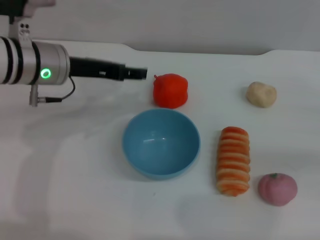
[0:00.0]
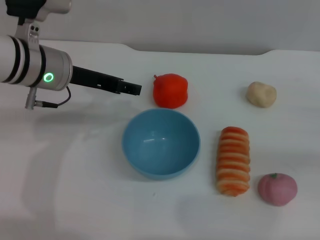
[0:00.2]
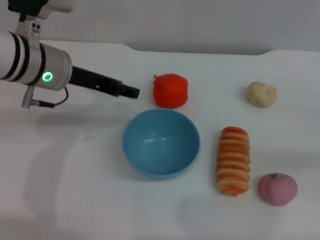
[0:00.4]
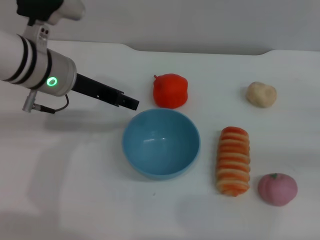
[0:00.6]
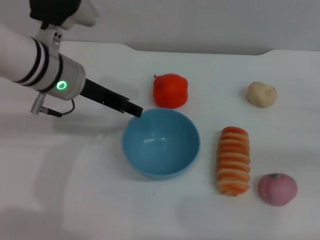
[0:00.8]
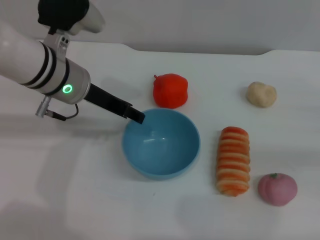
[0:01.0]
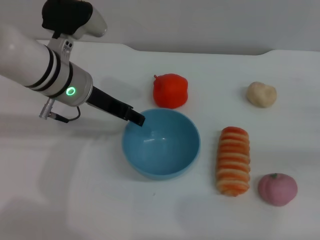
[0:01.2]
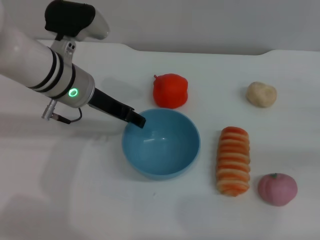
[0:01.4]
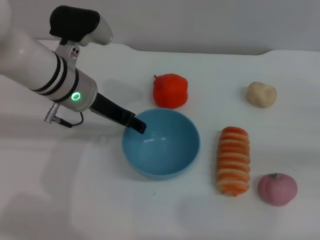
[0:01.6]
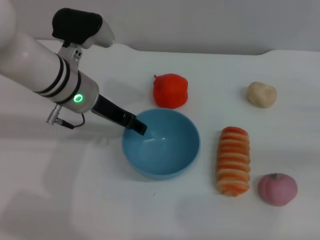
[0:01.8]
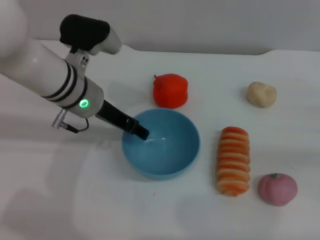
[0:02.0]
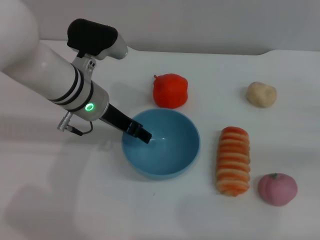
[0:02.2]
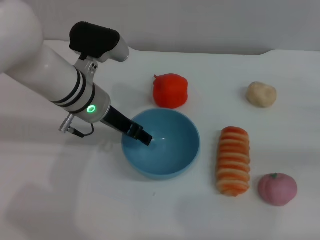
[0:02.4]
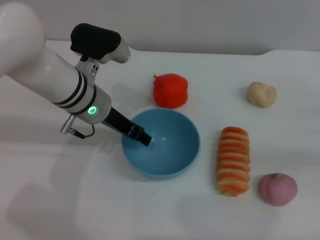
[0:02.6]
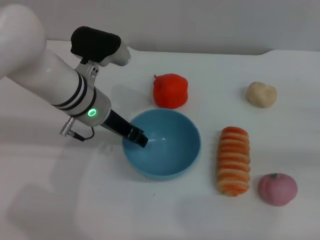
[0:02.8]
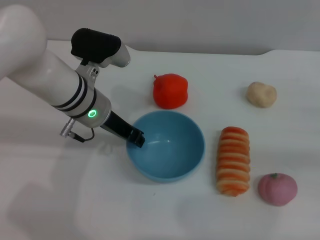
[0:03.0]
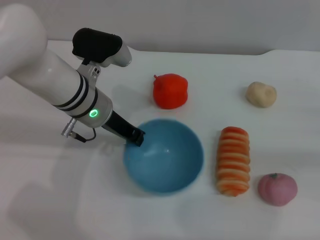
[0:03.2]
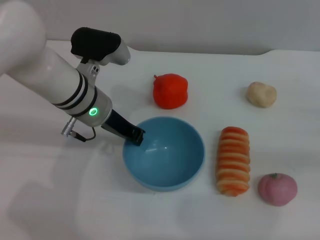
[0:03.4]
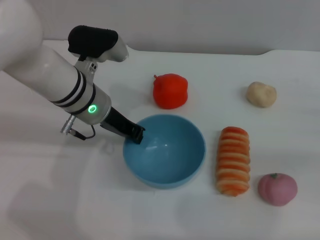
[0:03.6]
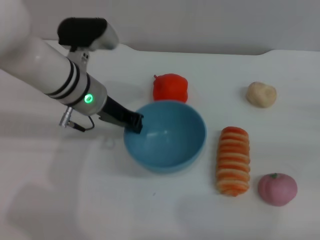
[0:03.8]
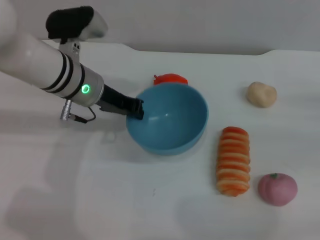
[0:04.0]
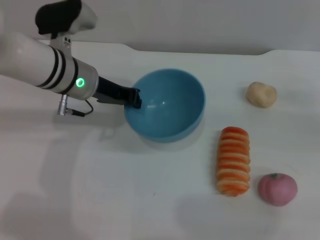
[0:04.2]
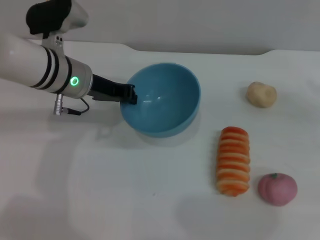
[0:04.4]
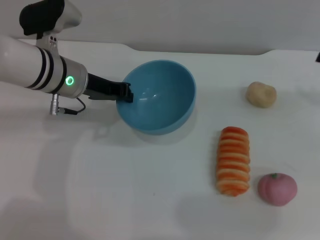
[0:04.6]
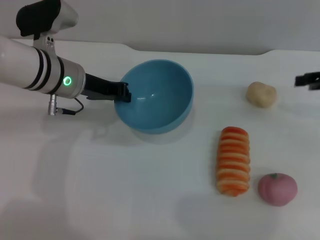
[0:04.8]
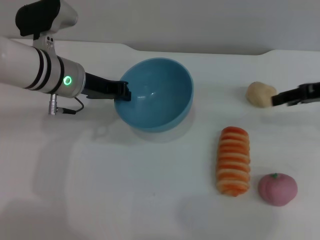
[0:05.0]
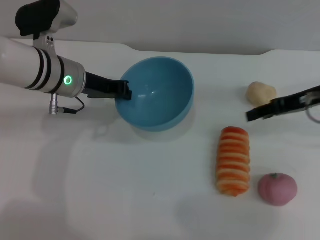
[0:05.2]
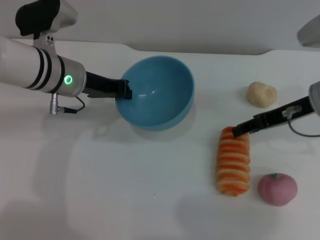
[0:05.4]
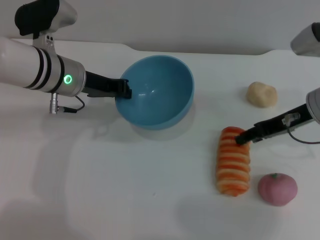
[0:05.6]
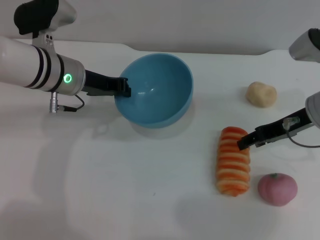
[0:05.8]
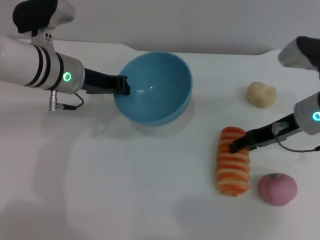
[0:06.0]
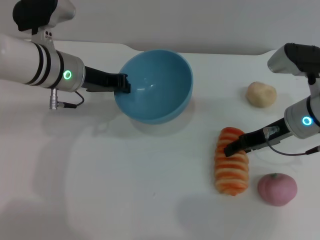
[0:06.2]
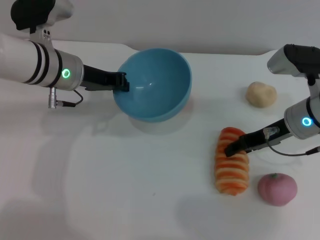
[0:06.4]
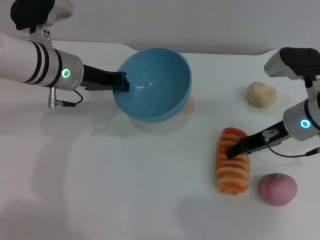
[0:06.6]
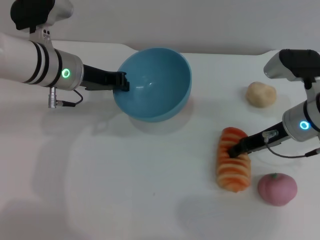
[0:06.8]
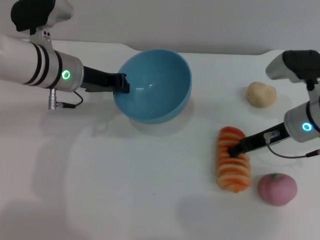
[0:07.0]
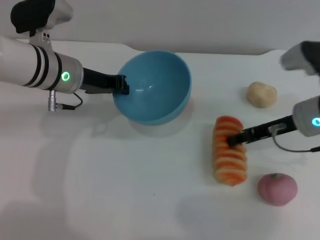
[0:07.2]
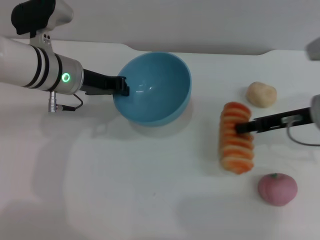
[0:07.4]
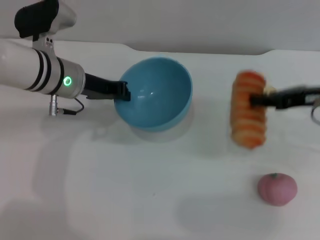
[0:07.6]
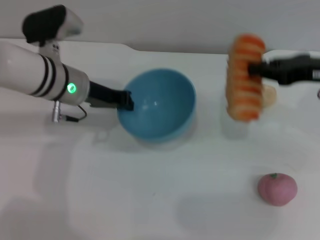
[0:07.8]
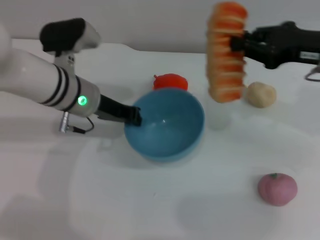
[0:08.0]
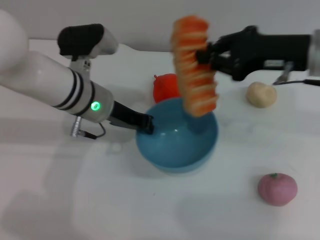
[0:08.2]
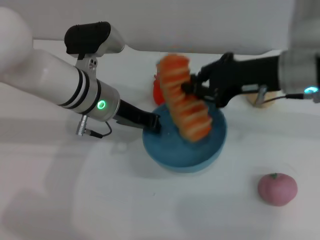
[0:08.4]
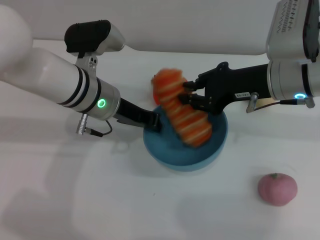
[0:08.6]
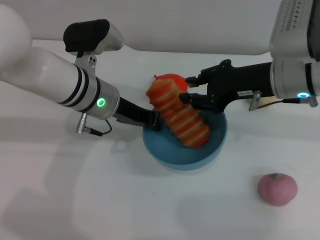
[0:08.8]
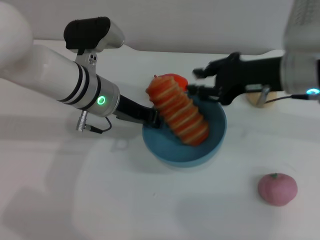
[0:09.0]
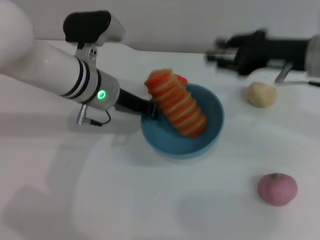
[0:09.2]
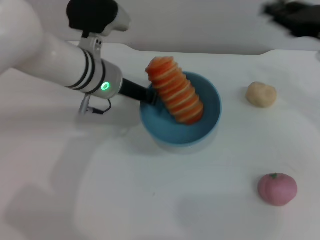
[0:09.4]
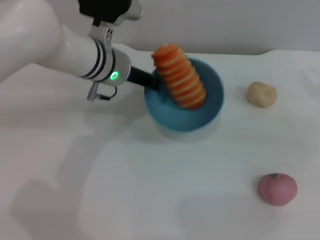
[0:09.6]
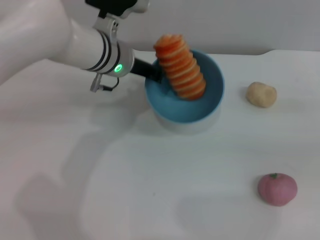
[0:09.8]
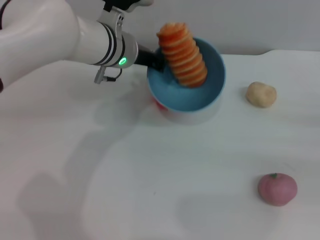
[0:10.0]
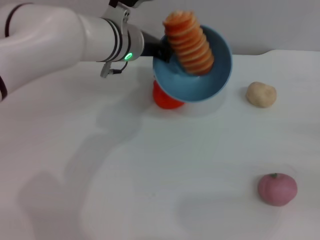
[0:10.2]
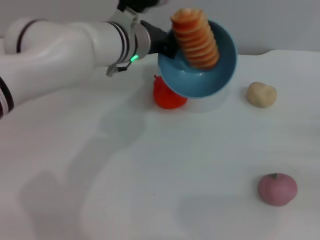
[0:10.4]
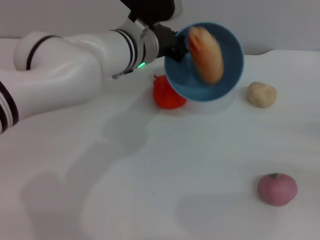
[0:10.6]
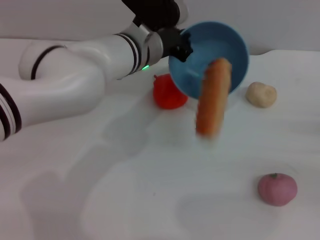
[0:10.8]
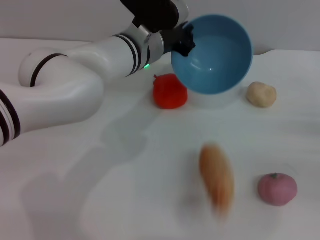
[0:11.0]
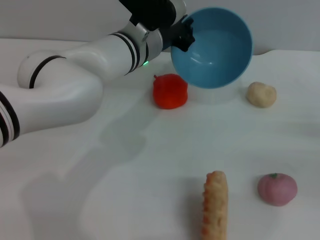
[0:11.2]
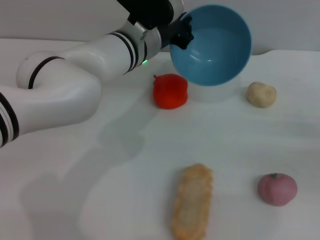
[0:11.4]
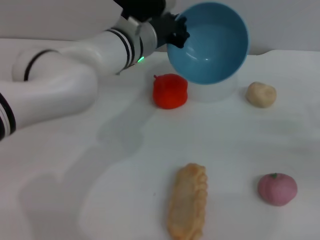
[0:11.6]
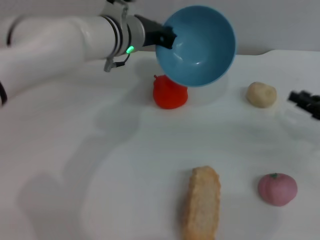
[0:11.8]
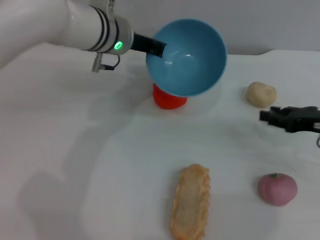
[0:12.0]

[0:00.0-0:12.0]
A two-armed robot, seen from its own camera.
Task of the whole recording: put the bread into the blue bowl and pour it out repeatedly.
Step, 0:00.0 to 0:04.0: Pick up the bowl with the left gripper.
Step, 0:04.2 to 0:07.6: Pick up the bread with the right gripper.
Step, 0:08.0 to 0:09.8: Place the bread into the bowl.
Step, 0:10.0 to 0:11.0: Pour the bread out of the bowl.
0:01.6 to 0:03.0: The left gripper closes up.
0:03.0 to 0:04.4: The right gripper goes about 5 cm forward. Meanwhile the left gripper closes.
0:04.4 to 0:06.0: The right gripper is displaced to the left by about 15 cm.
0:06.0 to 0:07.6: The right gripper shifts by about 5 cm, and closes.
0:07.6 to 0:09.0: The left gripper moves to the right, about 5 cm. The right gripper goes roughly 10 cm to the left.
0:09.0 to 0:10.4: The left gripper is displaced forward by about 5 cm, while the right gripper heads to the right, backward and downward, covering approximately 30 cm.
0:10.4 to 0:12.0: The right gripper is displaced to the left and forward by some 15 cm.

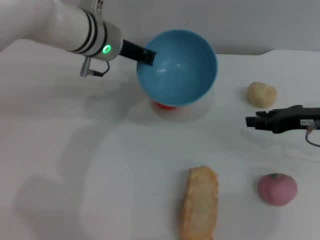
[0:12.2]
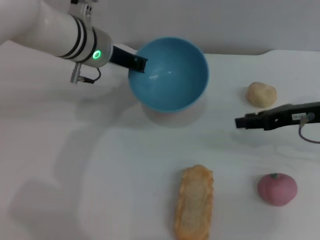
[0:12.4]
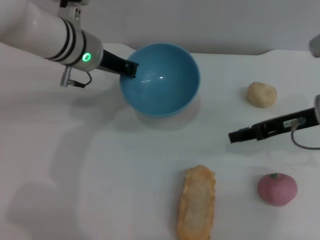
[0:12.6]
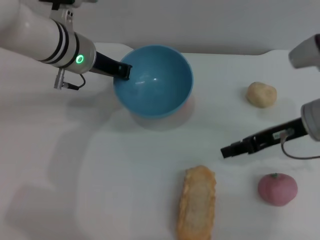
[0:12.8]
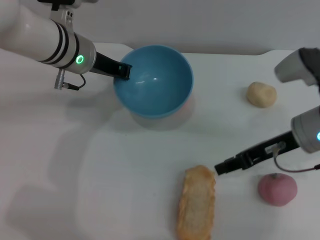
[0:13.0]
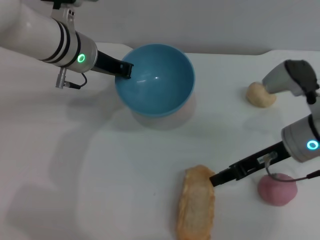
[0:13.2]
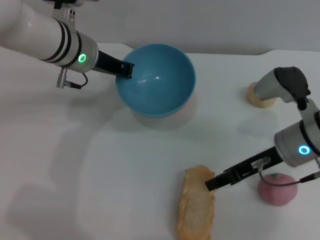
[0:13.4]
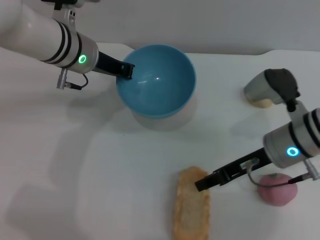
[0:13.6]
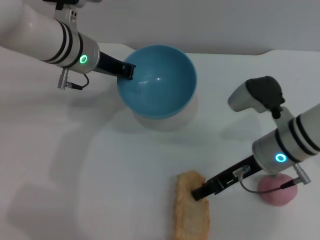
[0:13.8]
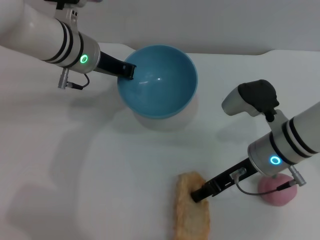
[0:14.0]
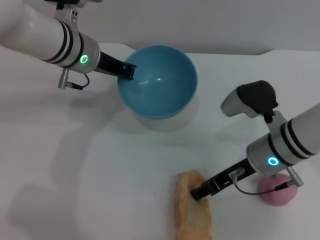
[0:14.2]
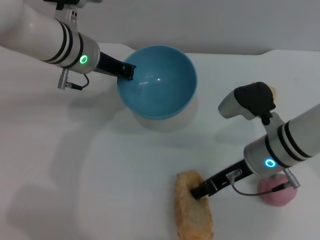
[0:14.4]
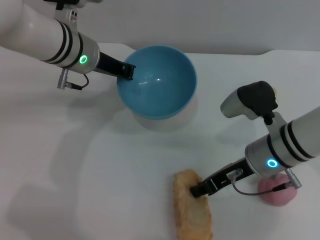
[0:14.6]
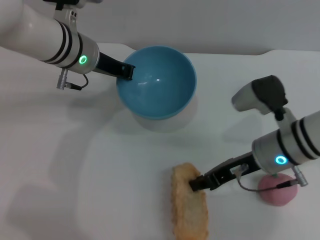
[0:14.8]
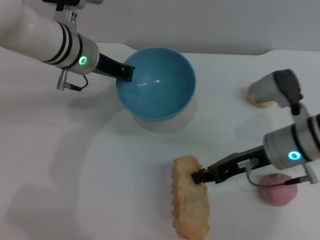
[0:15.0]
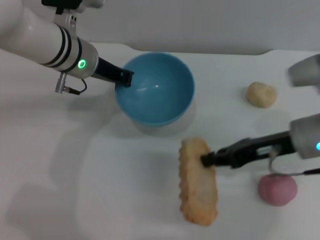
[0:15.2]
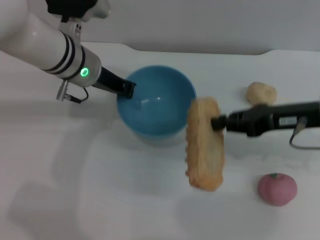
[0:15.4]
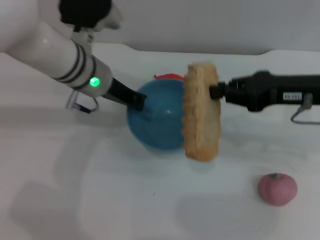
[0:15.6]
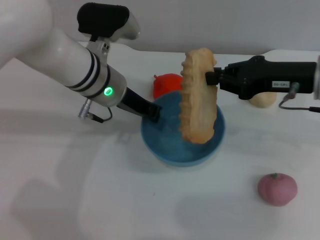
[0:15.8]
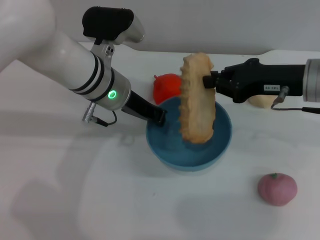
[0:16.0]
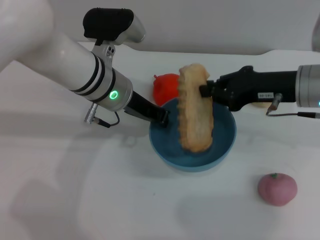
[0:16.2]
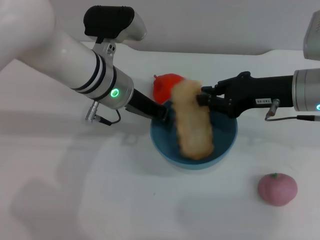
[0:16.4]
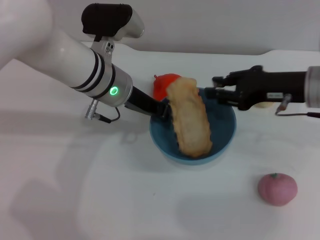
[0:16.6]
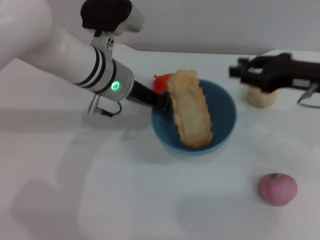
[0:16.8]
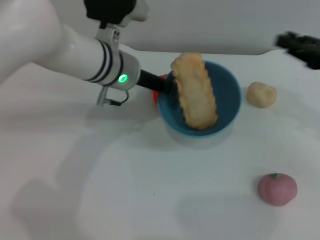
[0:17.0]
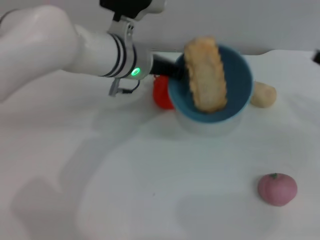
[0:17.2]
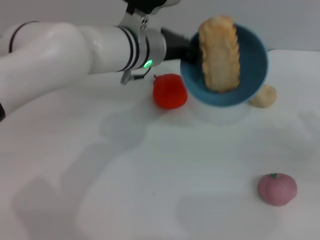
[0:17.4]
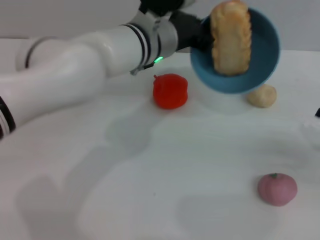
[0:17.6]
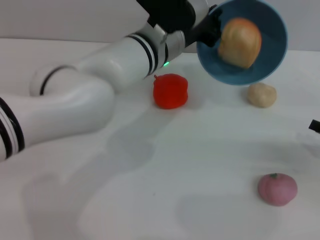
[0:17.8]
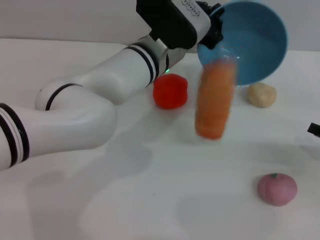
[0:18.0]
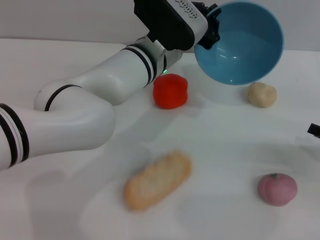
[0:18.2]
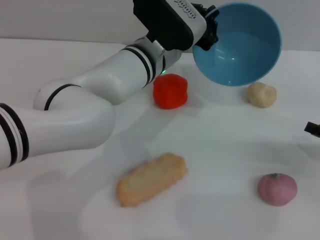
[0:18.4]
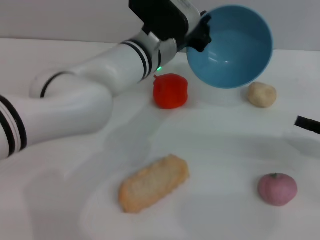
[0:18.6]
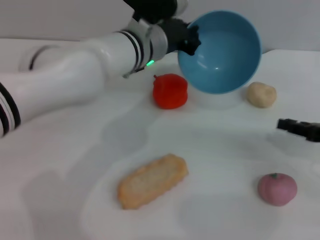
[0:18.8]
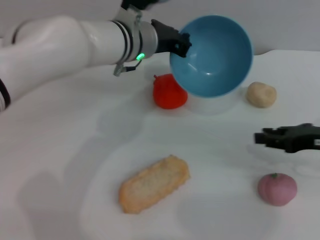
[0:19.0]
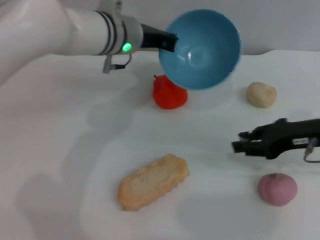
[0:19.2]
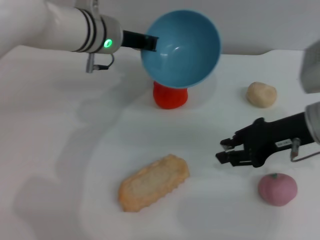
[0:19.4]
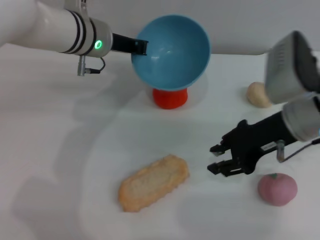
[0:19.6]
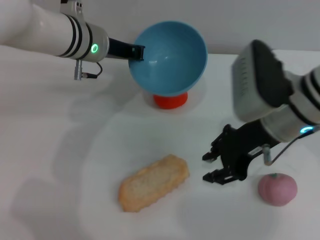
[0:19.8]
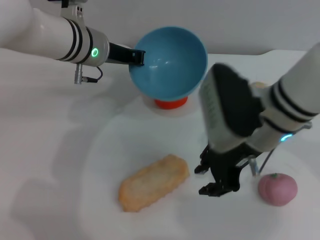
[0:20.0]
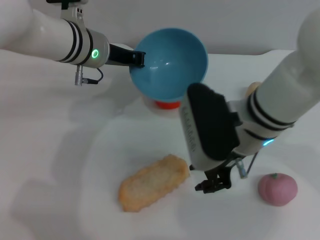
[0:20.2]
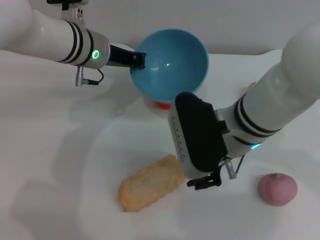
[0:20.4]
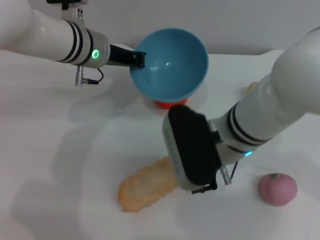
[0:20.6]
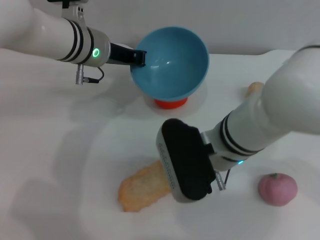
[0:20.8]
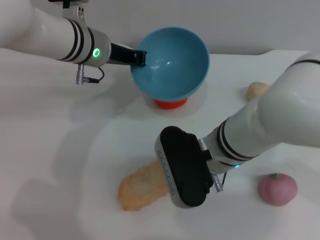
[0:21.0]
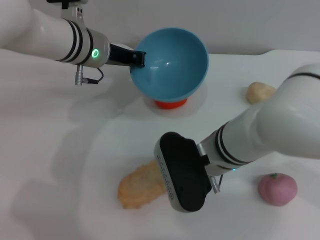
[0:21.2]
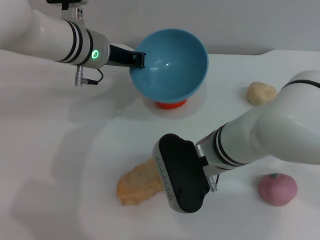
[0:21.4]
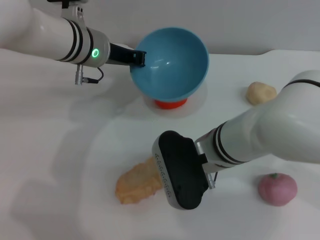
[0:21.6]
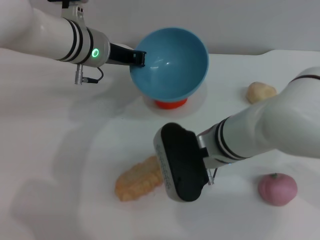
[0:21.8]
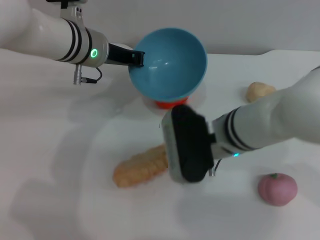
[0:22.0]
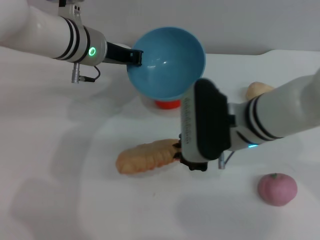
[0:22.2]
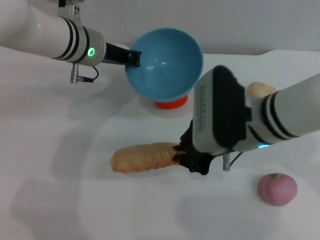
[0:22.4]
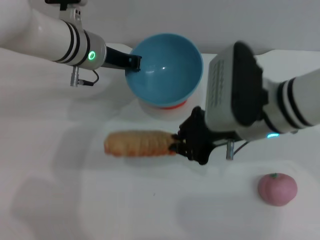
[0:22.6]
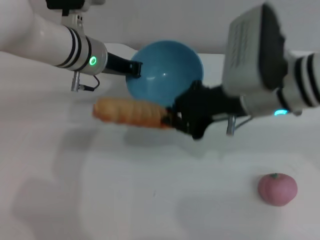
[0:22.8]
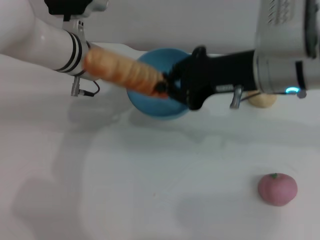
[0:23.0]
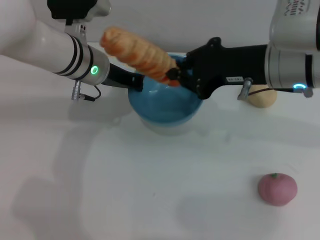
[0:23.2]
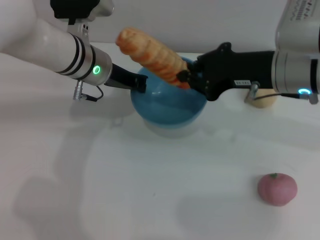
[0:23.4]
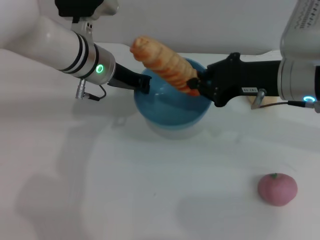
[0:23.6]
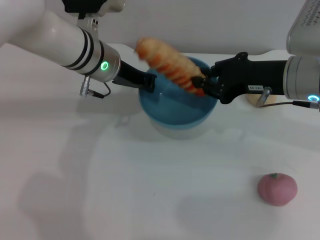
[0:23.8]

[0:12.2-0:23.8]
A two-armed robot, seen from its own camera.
Task of the whole recording: put the bread into the blue bowl and pour it out repeatedly.
Step, 0:12.2 to 0:15.2: Pick up the bread with the right gripper.
Step, 0:15.4 to 0:16.8: Place the bread into the bowl.
Step, 0:17.0 to 0:18.0: Pour the bread out of the bowl.
Step, 0:18.4 to 0:22.4: Pick up the bread with the right gripper.
0:12.2 to 0:13.6: The right gripper travels to the left by some 10 cm.
0:13.6 to 0:15.0: The right gripper closes its fingers.
0:15.0 to 0:16.6: The left gripper ends up some 5 cm from where it was; the right gripper moves upward, roughly 5 cm.
0:16.6 to 0:18.0: The right gripper is displaced to the right, backward and downward by about 20 cm. The left gripper travels to the right by approximately 5 cm.
0:18.0 to 0:19.4: The left gripper heads to the left, covering about 10 cm. The right gripper goes about 20 cm to the left, upward and forward.
0:19.4 to 0:21.0: The right gripper travels to the left by roughly 15 cm.
0:21.0 to 0:22.4: The right gripper shifts by roughly 5 cm, and closes.
0:22.4 to 0:23.8: The right gripper moves to the right, approximately 10 cm.
